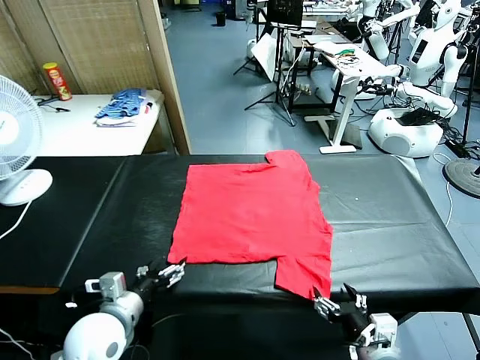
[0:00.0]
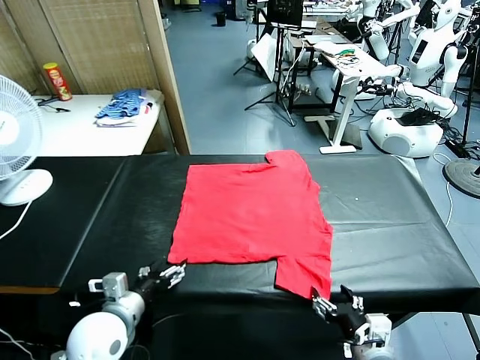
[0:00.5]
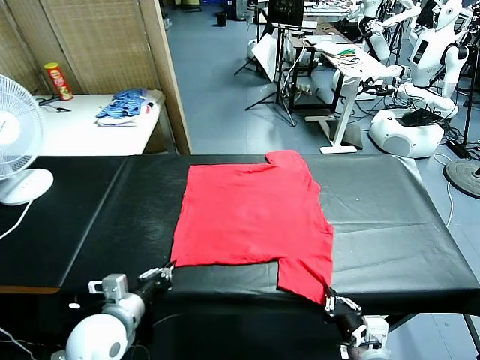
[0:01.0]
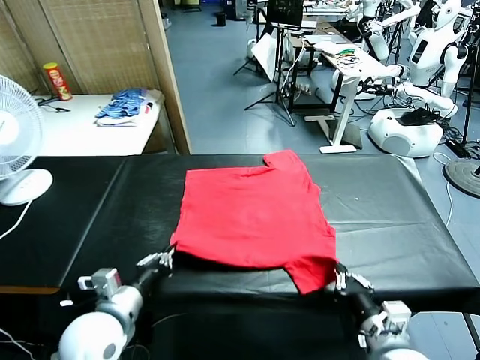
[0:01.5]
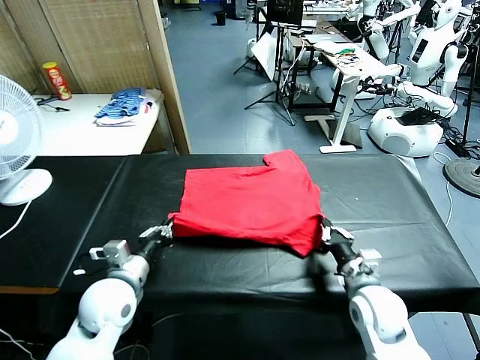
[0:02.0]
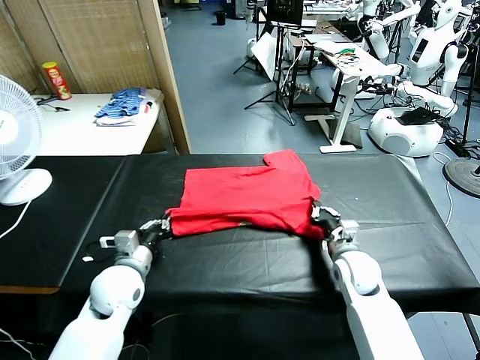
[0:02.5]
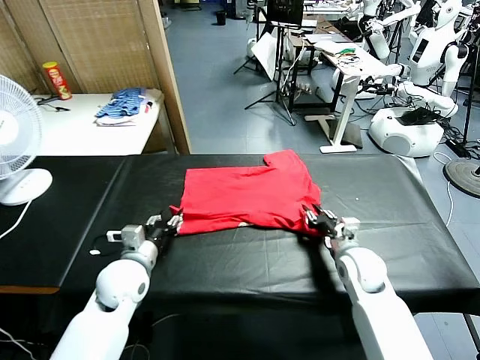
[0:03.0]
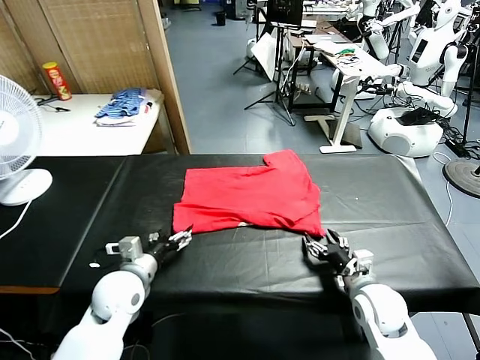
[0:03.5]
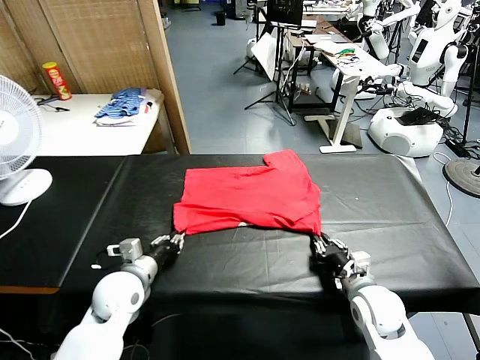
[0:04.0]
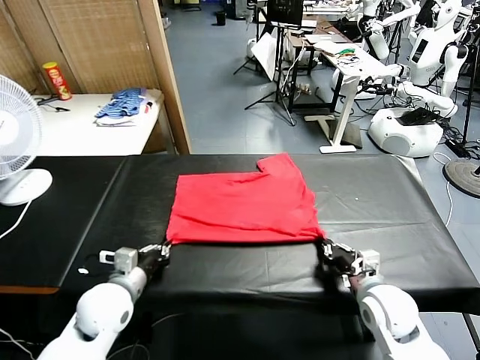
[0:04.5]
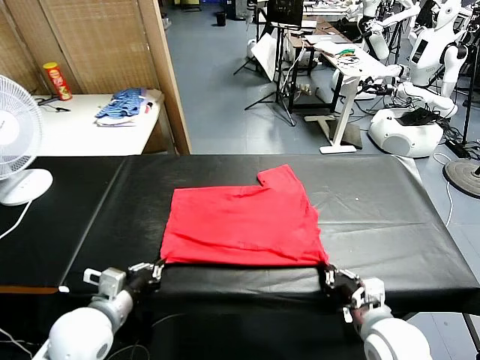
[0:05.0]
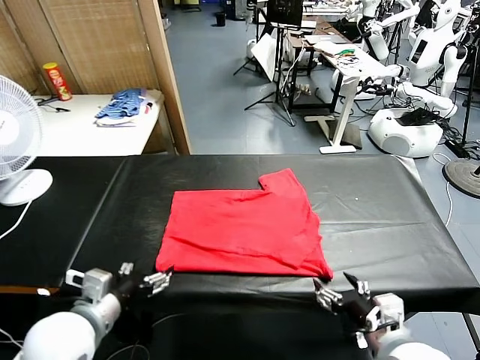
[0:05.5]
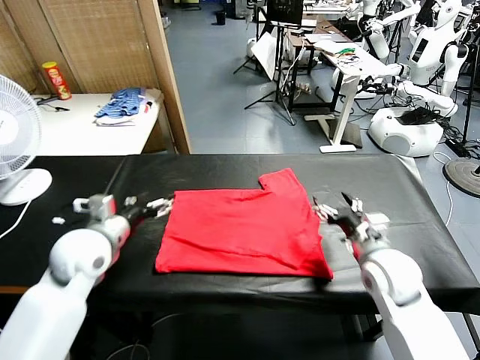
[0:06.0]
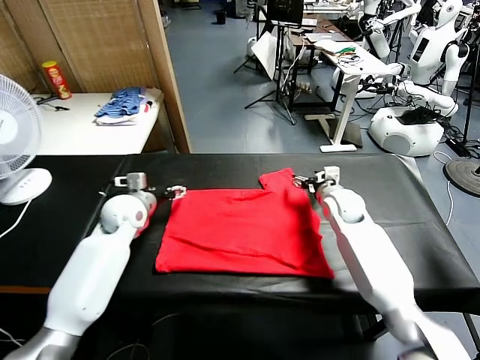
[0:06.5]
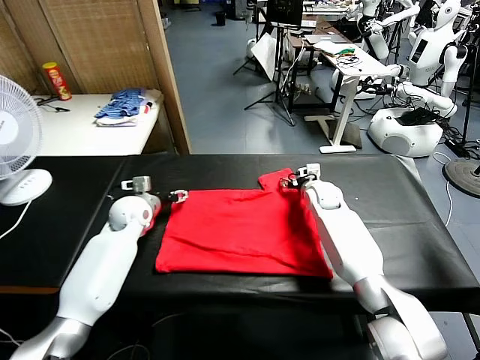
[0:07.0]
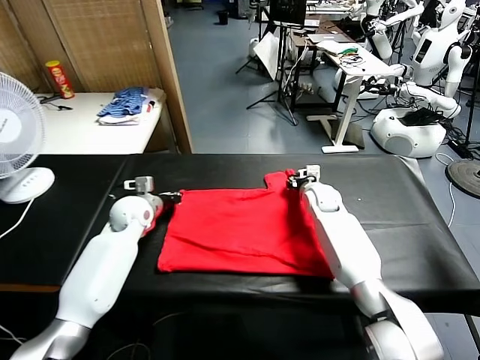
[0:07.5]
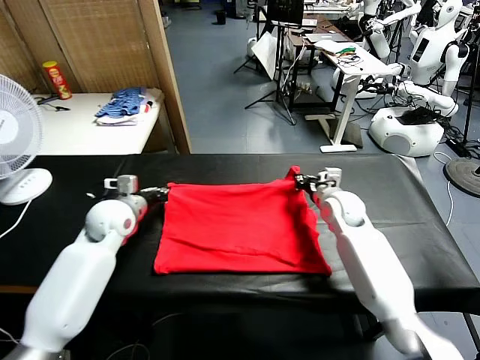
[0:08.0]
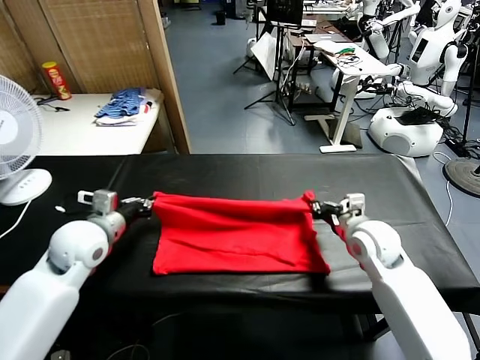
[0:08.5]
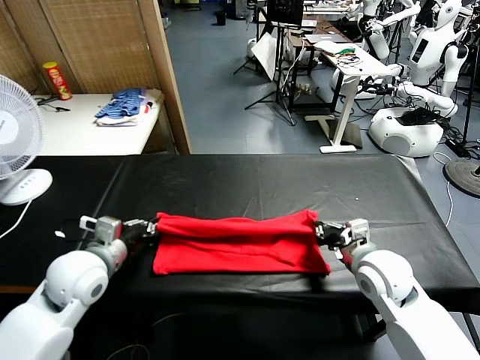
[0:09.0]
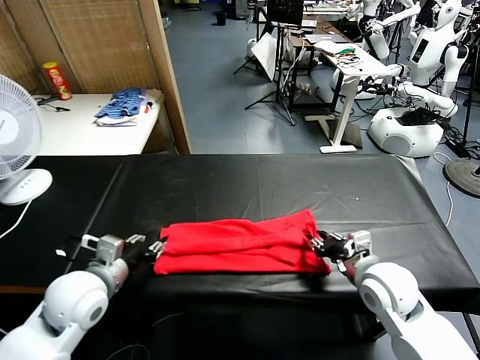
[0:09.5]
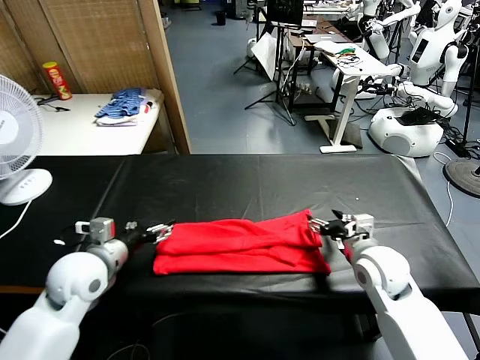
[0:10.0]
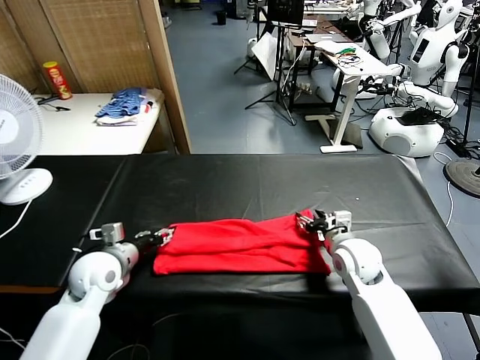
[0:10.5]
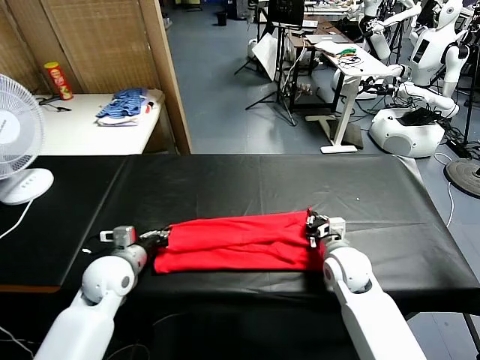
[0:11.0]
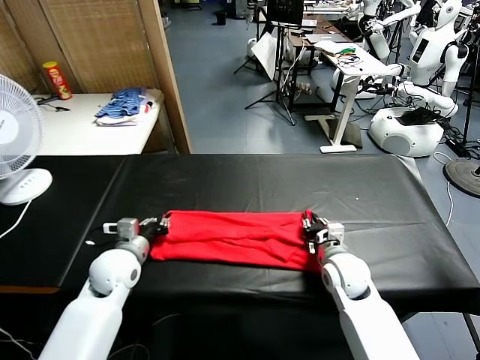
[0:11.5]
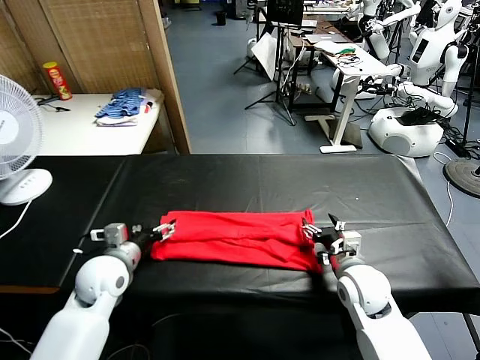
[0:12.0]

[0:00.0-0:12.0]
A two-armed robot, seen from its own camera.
Task of the whole recording: fold and organize the clothes.
Step, 0:00.0 to 0:01.0: use both grippers simultaneously to clamp the lower edge of the clothing fabric.
Step, 0:01.5 to 0:03.0: use both grippers to drag the lower edge of the fabric forward and fold it over the upper edge.
Step, 0:03.5 to 0:05.0: Drag the clothes downward with both gripper.
Step, 0:06.0 to 0:07.0: use both grippers simultaneously to clamp the upper edge of the clothing fabric.
Step, 0:08.0 to 0:09.5: use both grippers to drag the upper edge of the fabric backward and fold it over the lower edge.
0:02.0 to 0:04.0: The left gripper opens, then closes once more. Meanwhile the right gripper shifts by some 5 cm, and opens and closes again.
0:04.0 to 0:06.0: The left gripper heads upward, covering roughly 10 cm, reaches about 10 cm backward, then returns, and opens. Meanwhile the right gripper shifts roughly 15 cm forward and upward, and opens its fingers.
0:06.0 to 0:08.0: The left gripper heads forward, covering approximately 10 cm, and closes up. Meanwhile the right gripper travels forward and back again, roughly 15 cm each way, and closes its fingers.
0:08.0 to 0:10.0: Both grippers move backward, some 10 cm. The left gripper opens, while the right gripper opens.
0:10.0 to 0:12.0: The left gripper heads downward, covering approximately 5 cm, and closes and opens again, while the right gripper changes place by approximately 5 cm, and closes, then reopens.

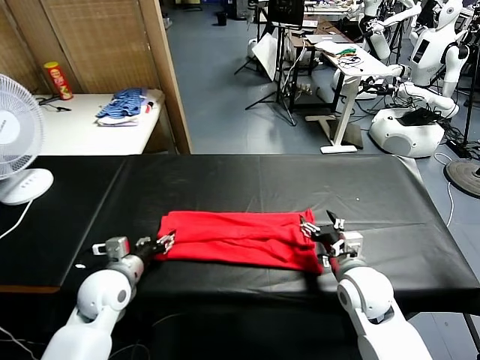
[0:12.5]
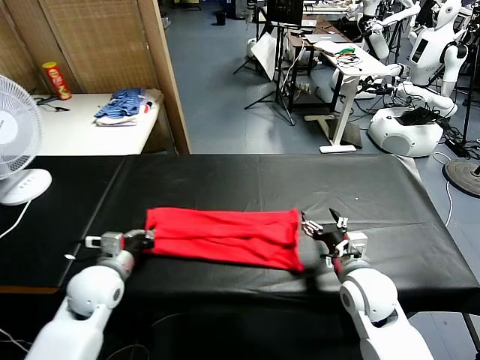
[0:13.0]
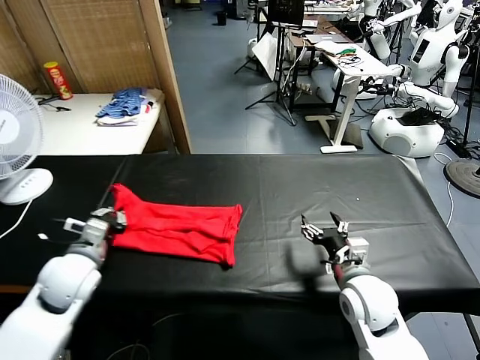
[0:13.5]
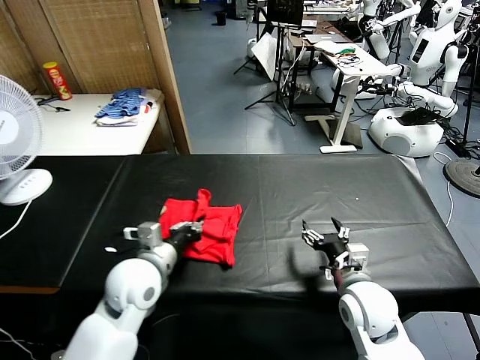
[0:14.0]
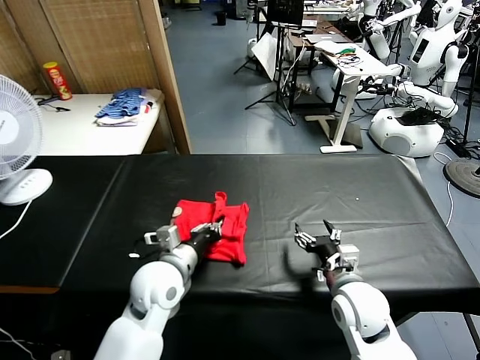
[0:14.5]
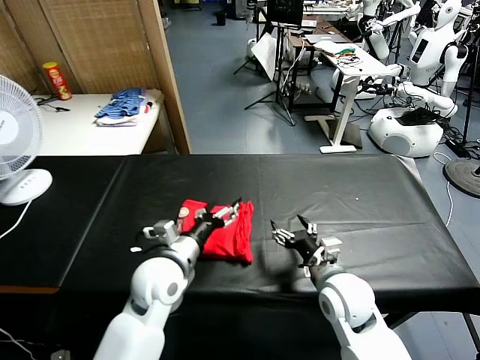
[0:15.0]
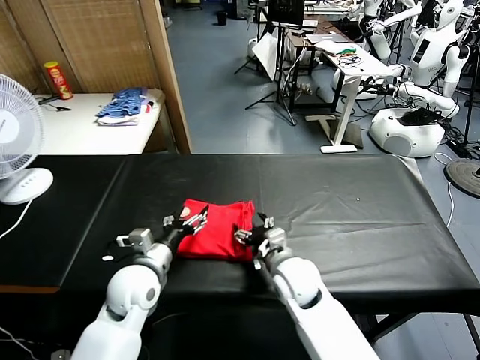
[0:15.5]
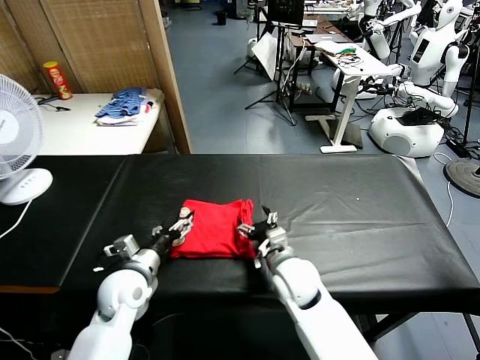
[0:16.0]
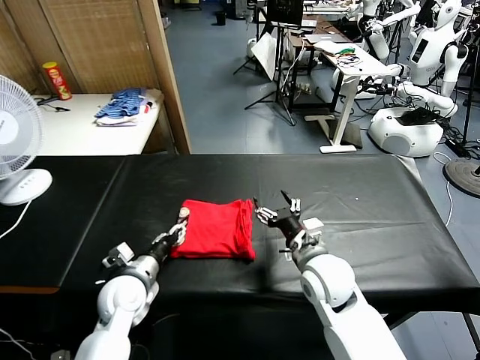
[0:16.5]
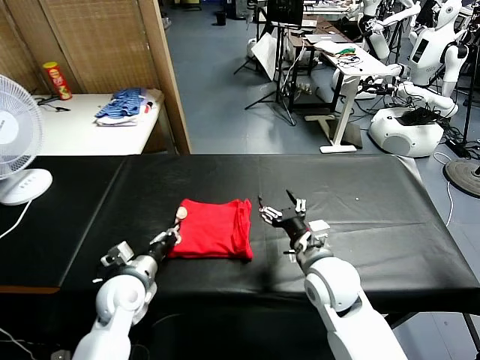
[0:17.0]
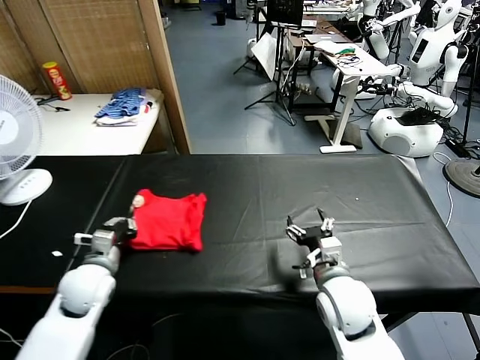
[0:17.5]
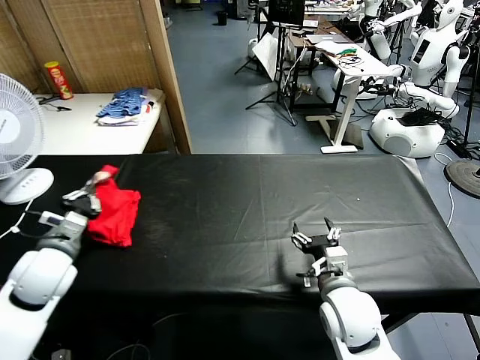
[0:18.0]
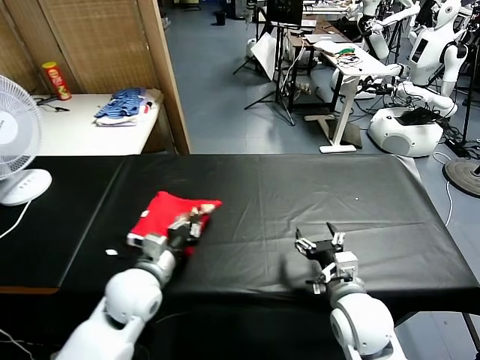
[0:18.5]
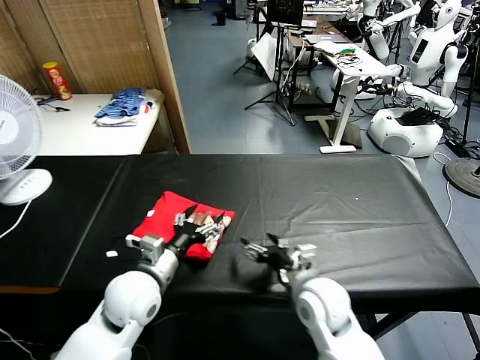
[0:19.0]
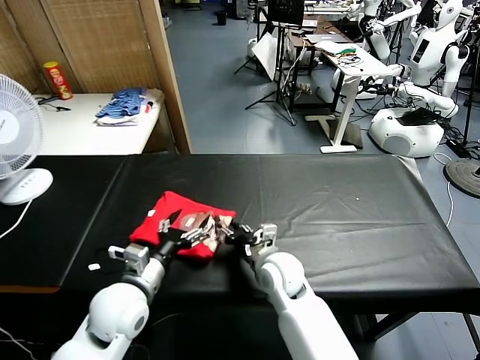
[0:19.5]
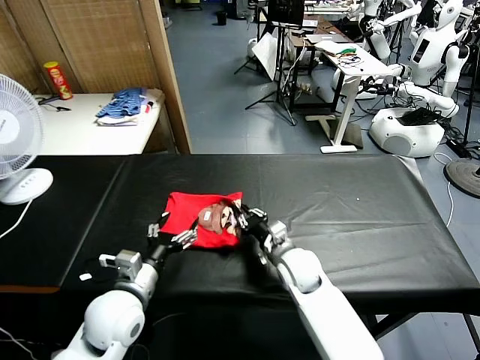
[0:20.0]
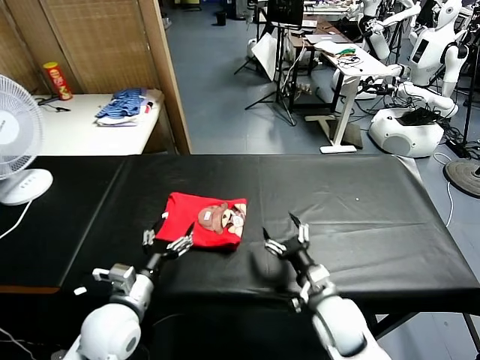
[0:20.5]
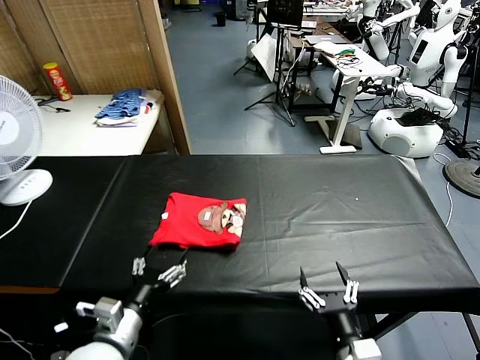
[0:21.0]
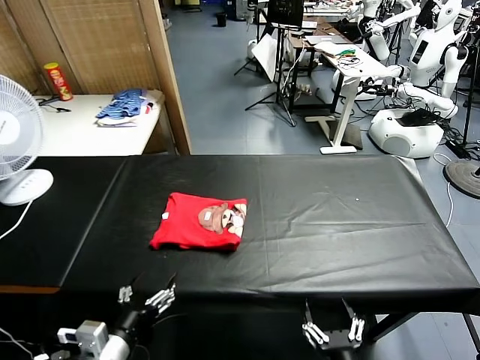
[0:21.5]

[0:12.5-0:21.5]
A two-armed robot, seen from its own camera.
Task of the whole recording: fold and organize the clothes.
Step, 0:13.0 to 0:14.5: use the left gripper to drag the left edge of the fabric to the left and folds it over the right edge.
Step, 0:15.5 to 0:18.5: Flip the folded clothes over with left gripper.
Step, 0:19.0 to 0:20.0: Drag the clothes to the center of the table.
0:12.5 to 0:14.5: The left gripper shifts about 10 cm to the right, and closes its fingers.
0:14.5 to 0:17.0: The right gripper travels to the left by roughly 5 cm. The left gripper travels to the left and downward by some 10 cm, and opens, then closes again.
0:17.0 to 0:19.5: The right gripper travels to the left and downward by about 10 cm. Meanwhile the left gripper heads upward, covering approximately 5 cm, reaches about 10 cm to the left, then returns, and opens up.
0:19.5 to 0:21.5: The right gripper is displaced backward by approximately 30 cm, and closes, then reopens. The left gripper is displaced backward by about 15 cm.

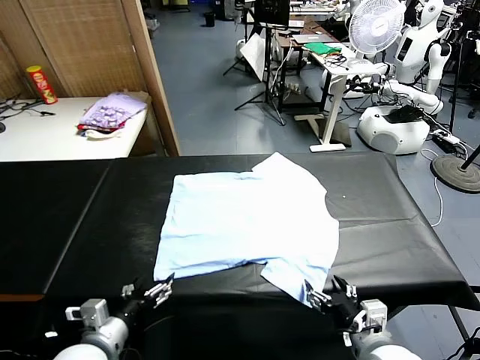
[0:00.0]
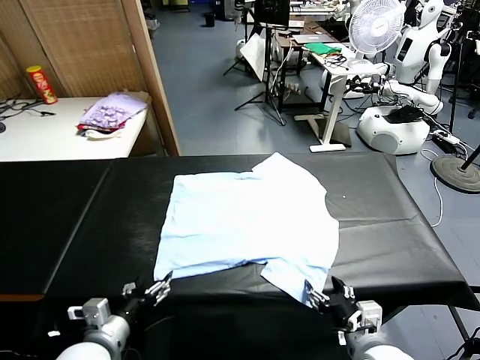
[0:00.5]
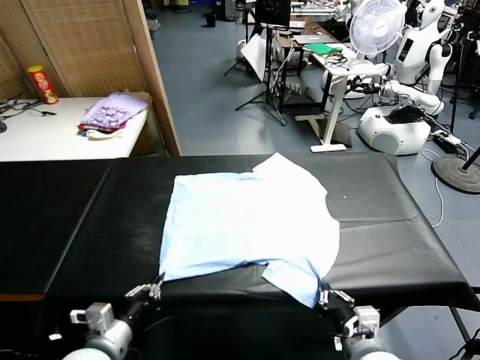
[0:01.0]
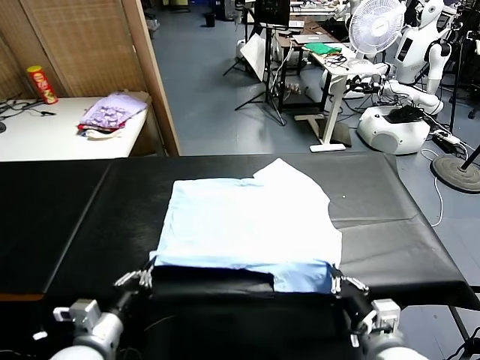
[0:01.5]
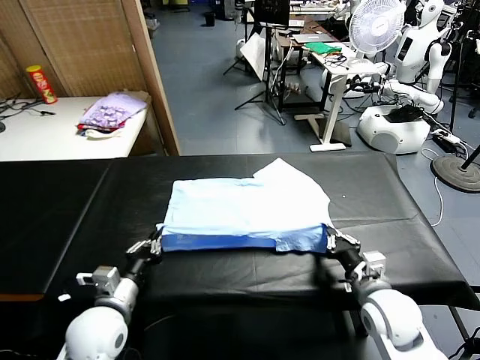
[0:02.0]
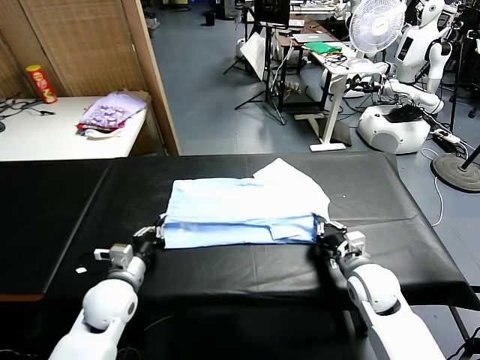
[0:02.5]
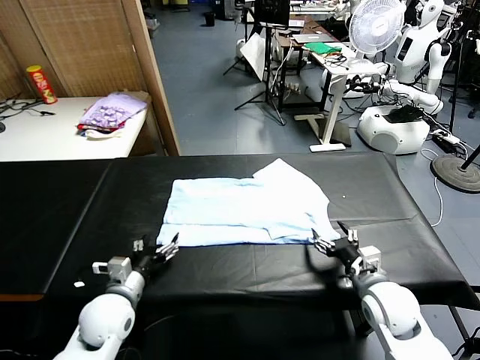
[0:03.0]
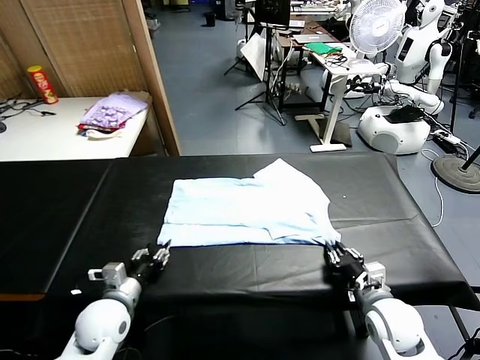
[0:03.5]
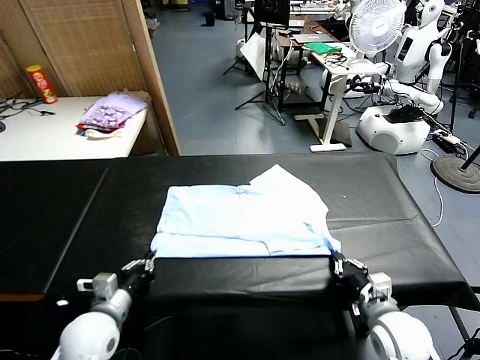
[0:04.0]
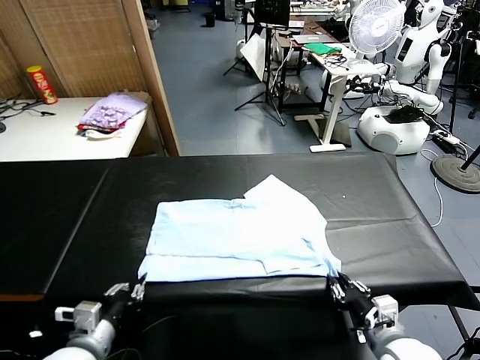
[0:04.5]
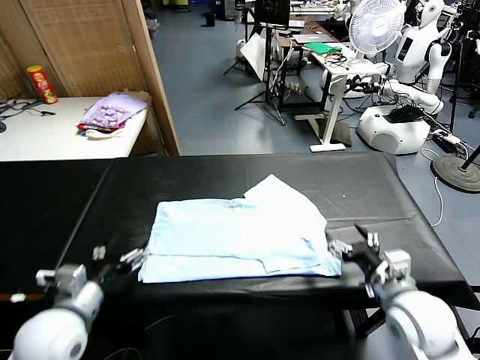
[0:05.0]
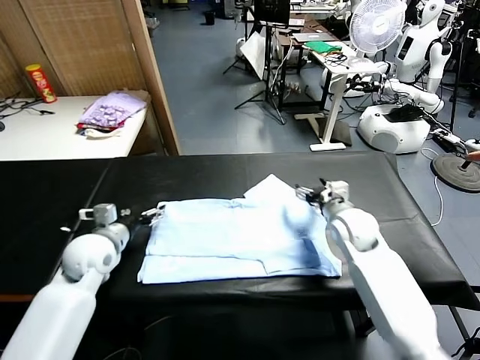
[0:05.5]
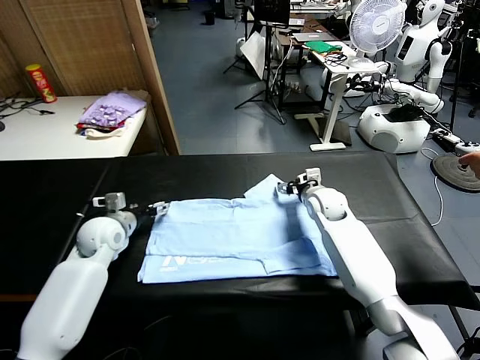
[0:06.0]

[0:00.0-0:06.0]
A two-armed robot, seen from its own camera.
Task of the whole recording: fold and organize the clothes.
Step, 0:00.0 to 0:00.5: use both grippers simultaneously to clamp the lower edge of the clothing fabric.
Step, 0:01.0 to 0:02.5: use both grippers to drag the lower edge of the fabric forward and fold it over the upper edge.
Step, 0:03.0 to 0:04.5: Drag the clothes downward with both gripper.
0:02.0 to 0:04.0: The right gripper shifts approximately 10 cm backward, and opens, then closes once more; the left gripper travels backward by roughly 5 cm, and opens, then closes again.
0:04.0 to 0:06.0: Both grippers move forward, roughly 30 cm. The right gripper opens its fingers, while the left gripper opens up.
